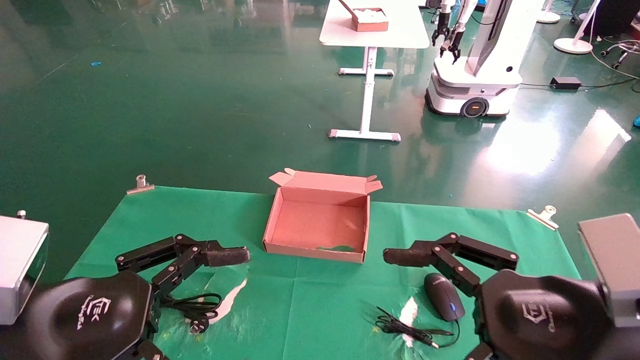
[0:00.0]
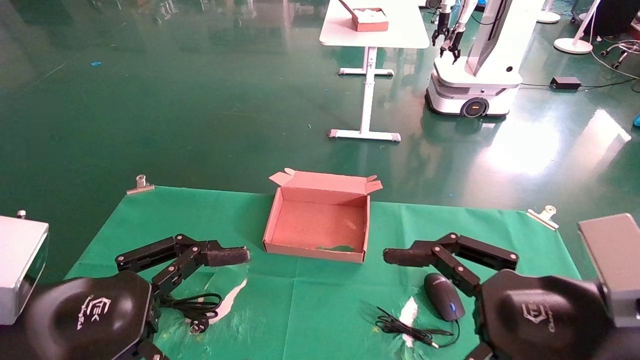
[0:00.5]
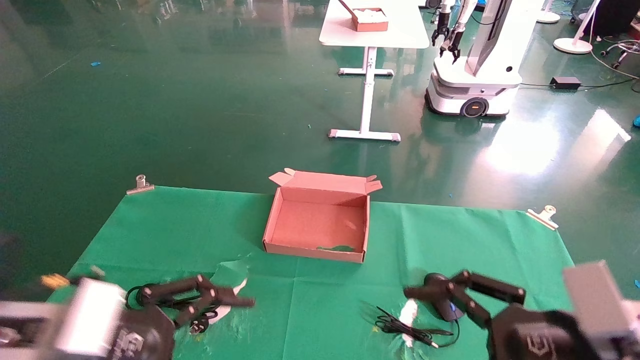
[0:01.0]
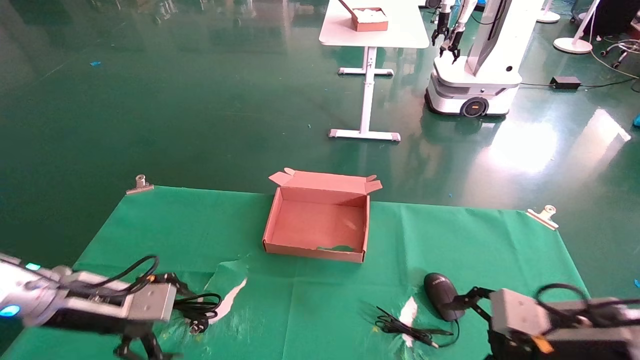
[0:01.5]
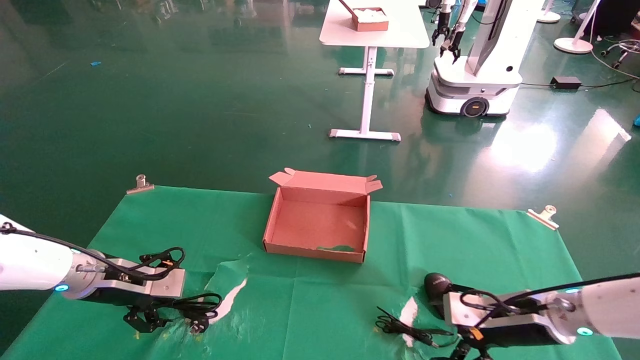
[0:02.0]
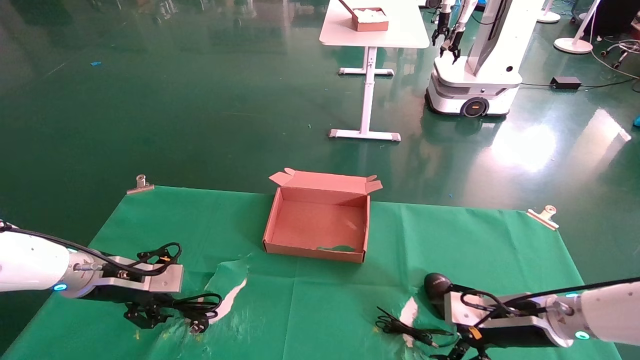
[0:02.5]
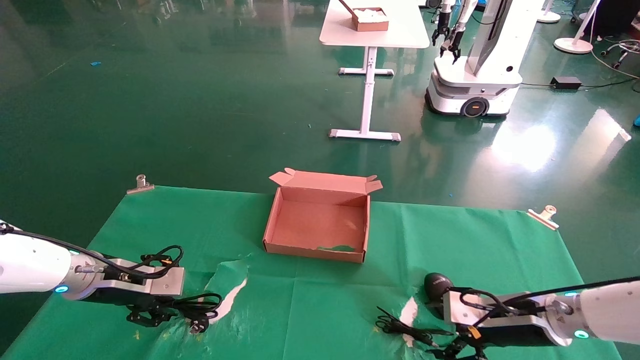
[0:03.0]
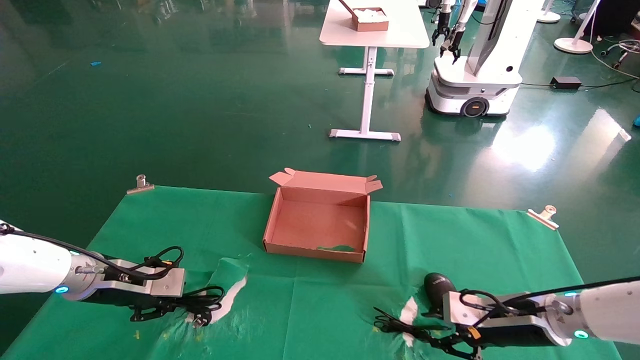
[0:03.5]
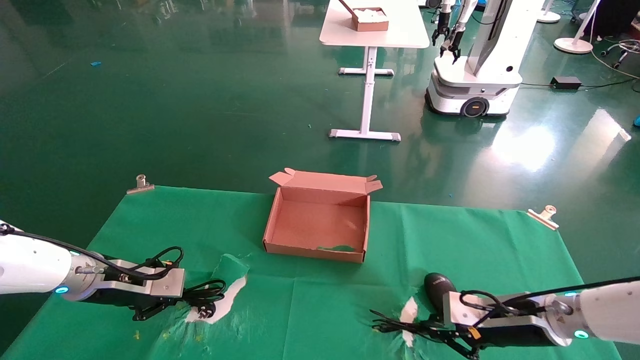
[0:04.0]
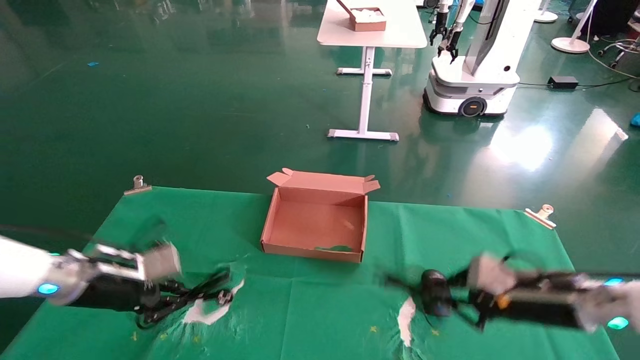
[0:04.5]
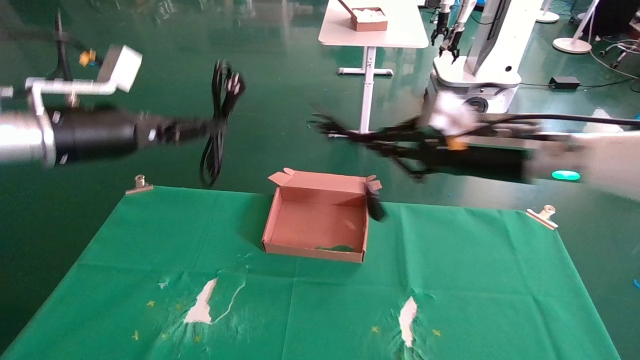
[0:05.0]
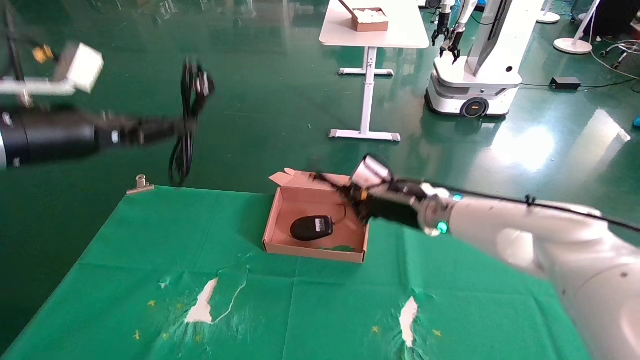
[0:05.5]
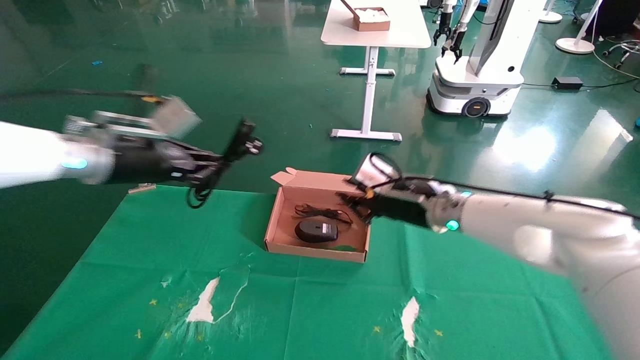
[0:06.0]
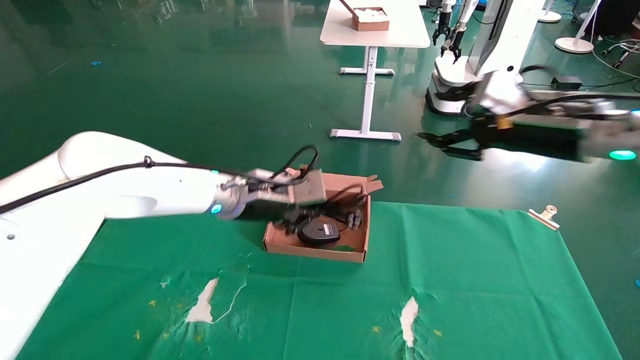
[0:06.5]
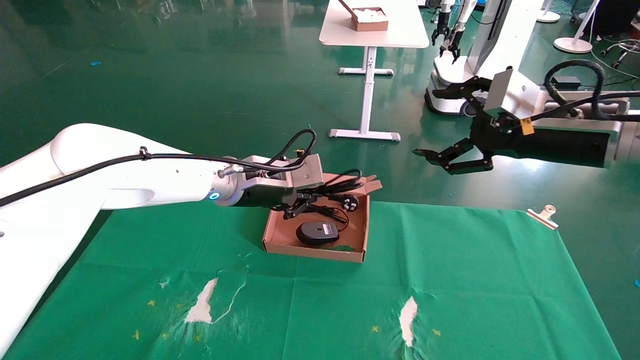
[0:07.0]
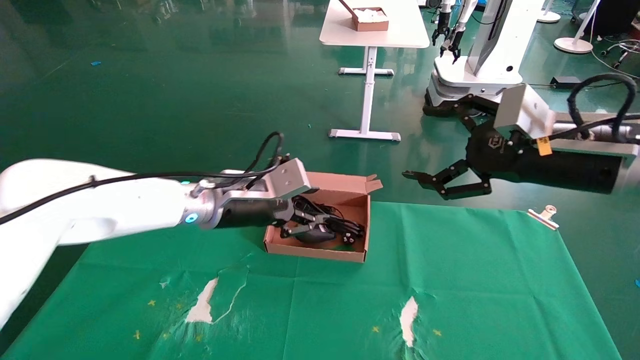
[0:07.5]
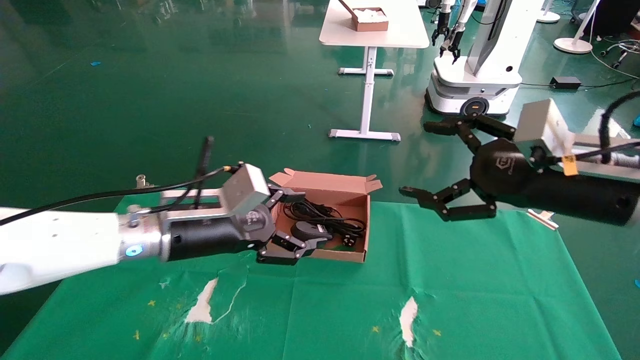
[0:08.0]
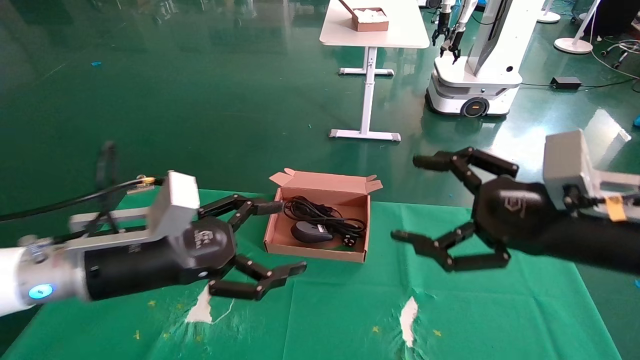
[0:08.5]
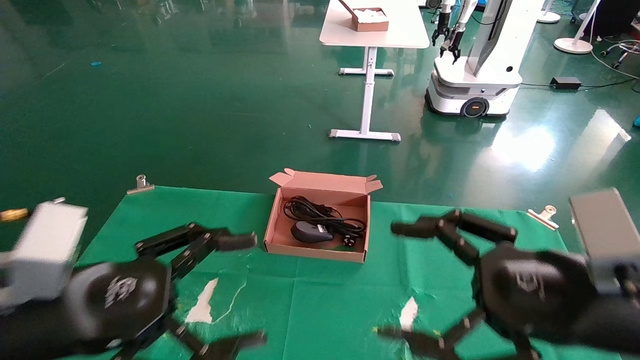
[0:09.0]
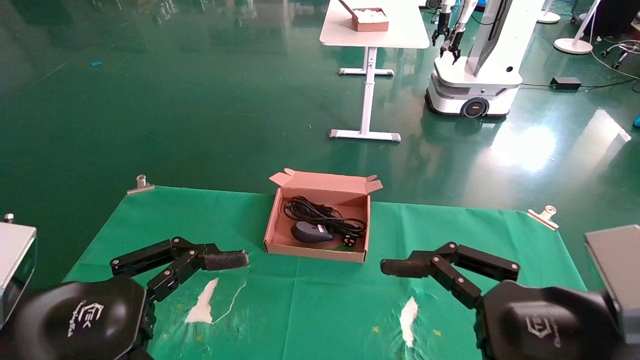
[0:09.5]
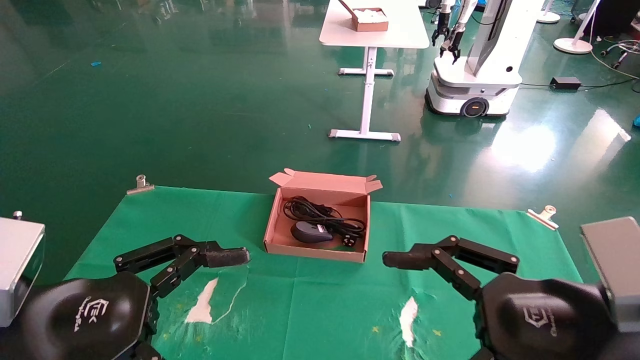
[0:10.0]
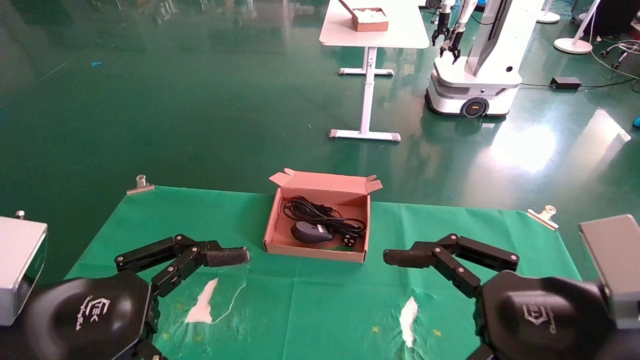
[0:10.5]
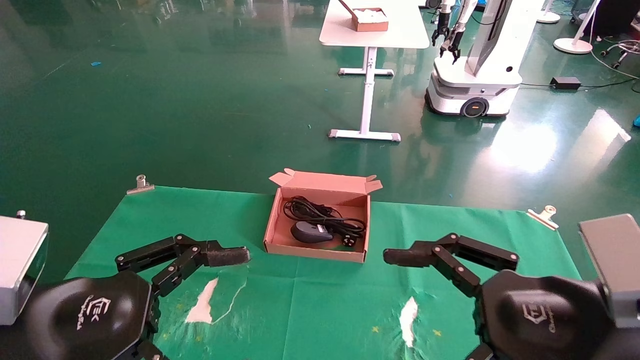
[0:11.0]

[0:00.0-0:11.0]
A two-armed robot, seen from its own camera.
Step, 0:01.5 to 0:03.5: Grab and lift both the mouse and power cord from the accessory packaging area at the same time.
Step, 0:04.0 to 0:07.5: Place the mouse and power cord into the box.
0:00.0 to 0:02.0: The right gripper travels forward and downward by about 25 cm. Meanwhile the left gripper shifts some 25 cm forward.
0:02.0 to 0:03.5: The left gripper closes its fingers; the right gripper closes.
0:03.5 to 0:05.5: The right gripper moves to the left, upward and forward, some 20 cm, and closes its fingers. Meanwhile the left gripper moves upward, approximately 20 cm, and closes.
0:05.5 to 0:07.5: The right gripper travels to the right, backward and upward by some 20 cm, and opens its fingers. The left gripper shifts some 20 cm to the right and downward.
0:07.5 to 0:09.0: The left gripper moves backward and to the left, roughly 25 cm, and opens its fingers, while the right gripper goes roughly 15 cm backward and downward.
0:09.0 to 0:11.0: The grippers move only a little.
